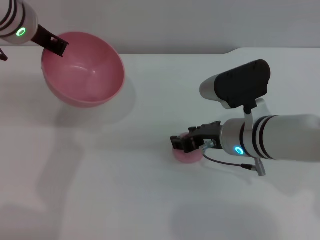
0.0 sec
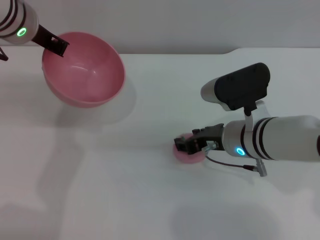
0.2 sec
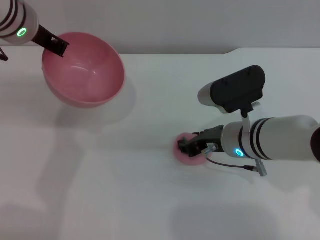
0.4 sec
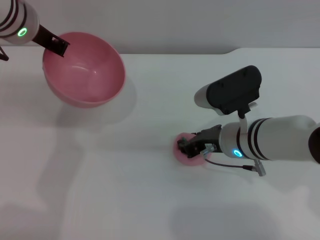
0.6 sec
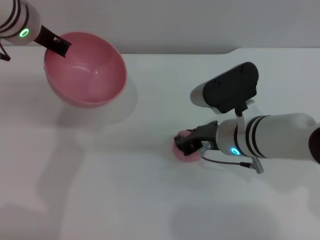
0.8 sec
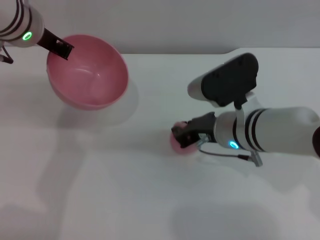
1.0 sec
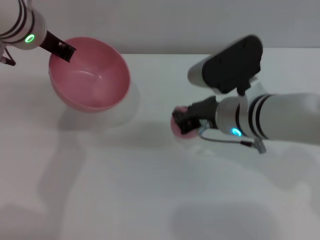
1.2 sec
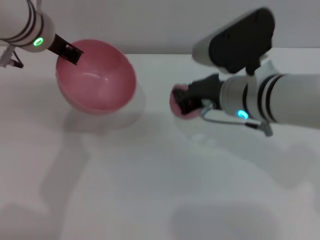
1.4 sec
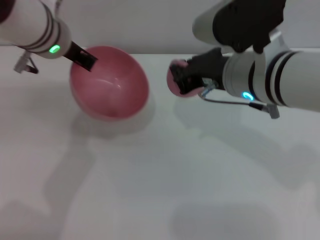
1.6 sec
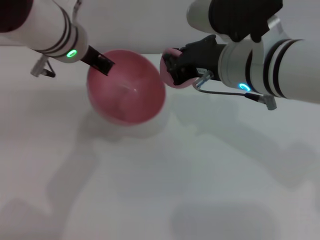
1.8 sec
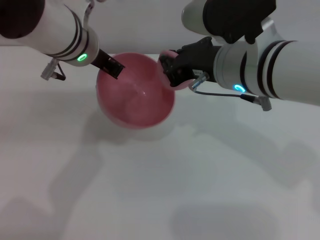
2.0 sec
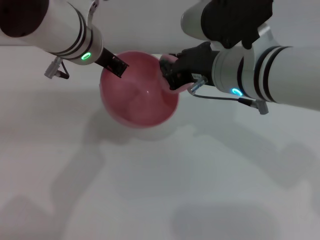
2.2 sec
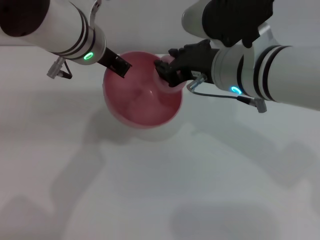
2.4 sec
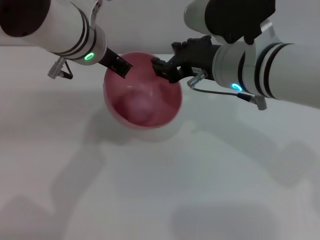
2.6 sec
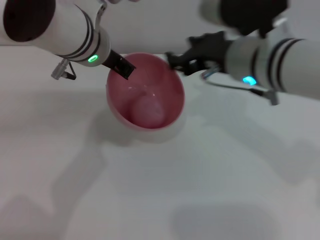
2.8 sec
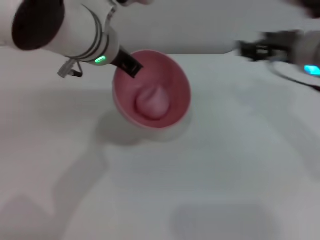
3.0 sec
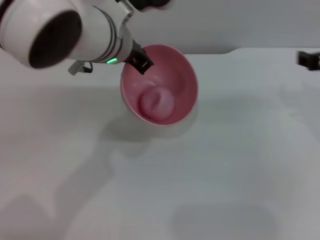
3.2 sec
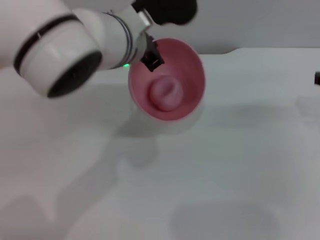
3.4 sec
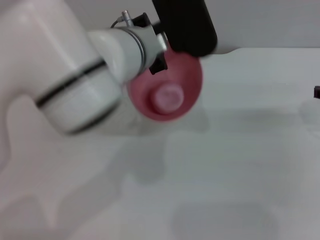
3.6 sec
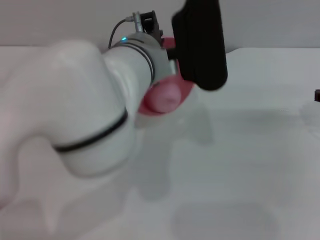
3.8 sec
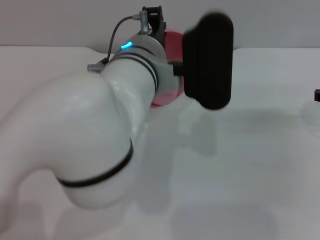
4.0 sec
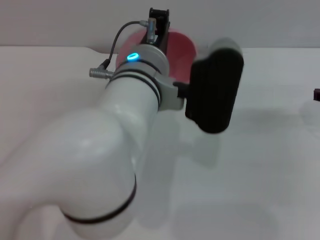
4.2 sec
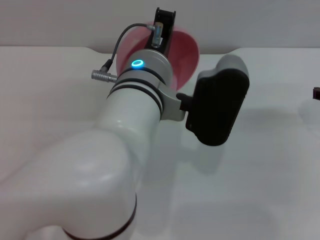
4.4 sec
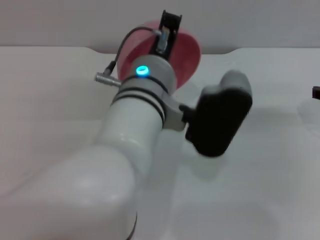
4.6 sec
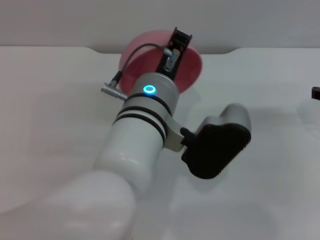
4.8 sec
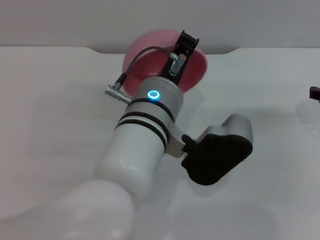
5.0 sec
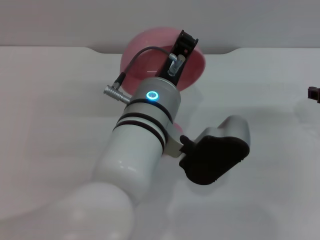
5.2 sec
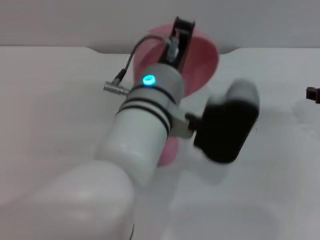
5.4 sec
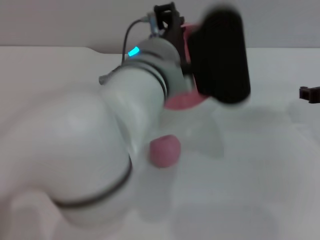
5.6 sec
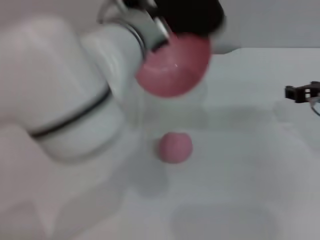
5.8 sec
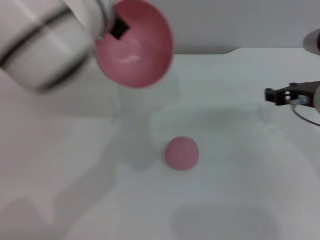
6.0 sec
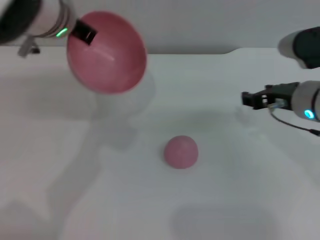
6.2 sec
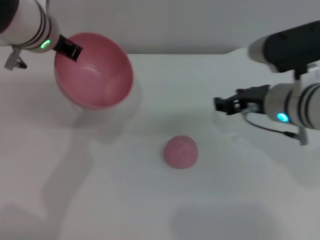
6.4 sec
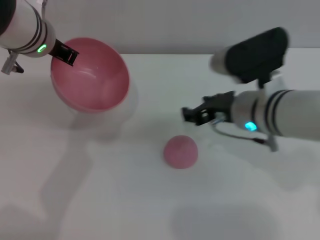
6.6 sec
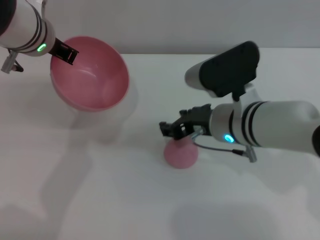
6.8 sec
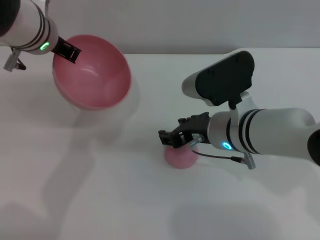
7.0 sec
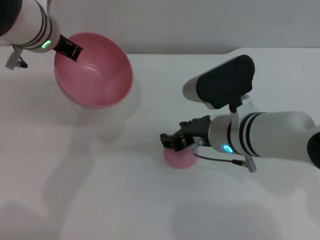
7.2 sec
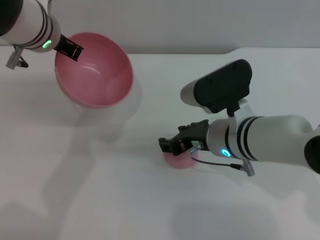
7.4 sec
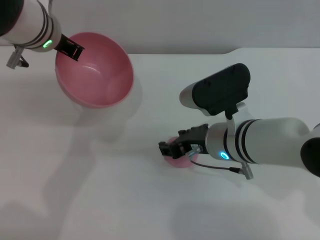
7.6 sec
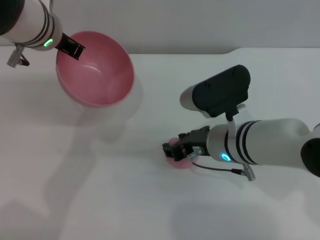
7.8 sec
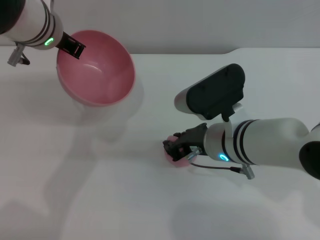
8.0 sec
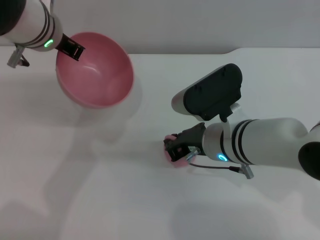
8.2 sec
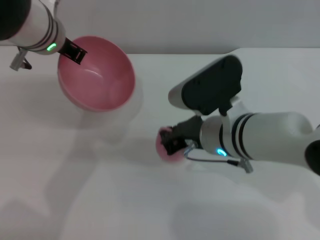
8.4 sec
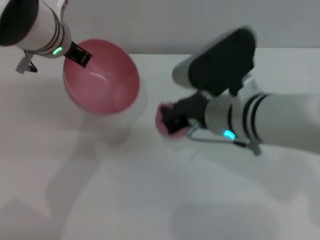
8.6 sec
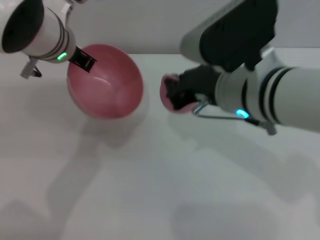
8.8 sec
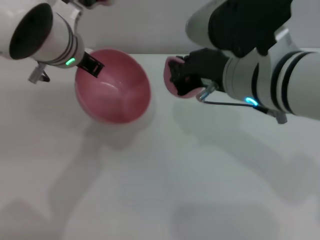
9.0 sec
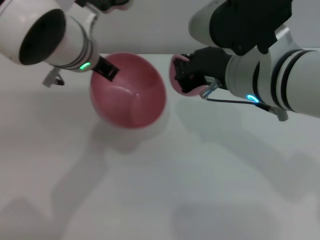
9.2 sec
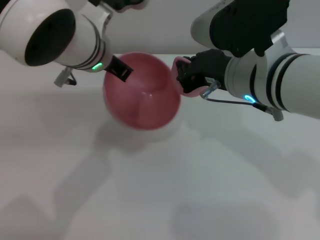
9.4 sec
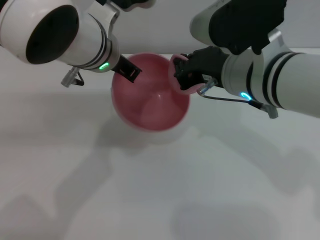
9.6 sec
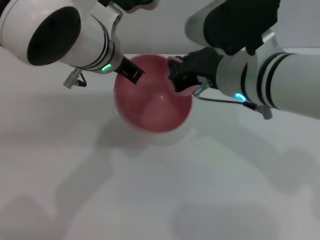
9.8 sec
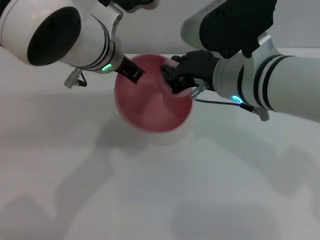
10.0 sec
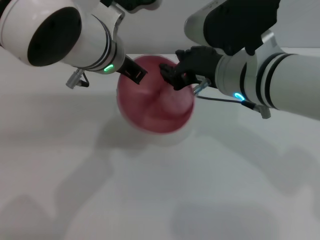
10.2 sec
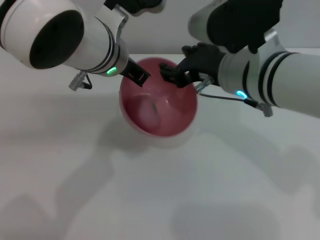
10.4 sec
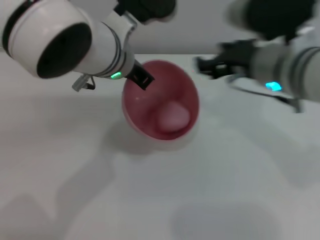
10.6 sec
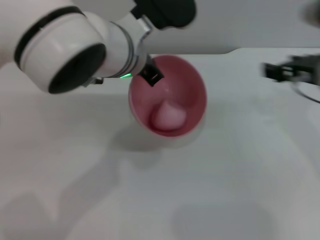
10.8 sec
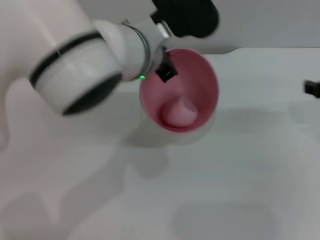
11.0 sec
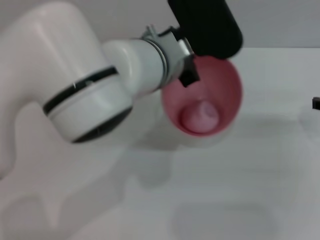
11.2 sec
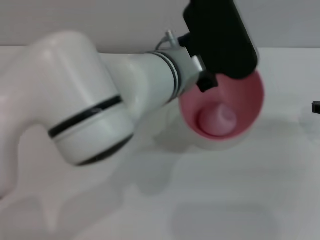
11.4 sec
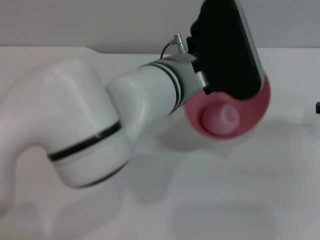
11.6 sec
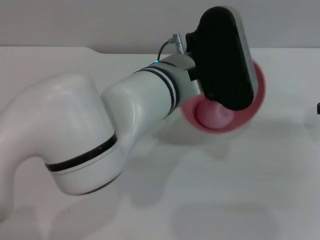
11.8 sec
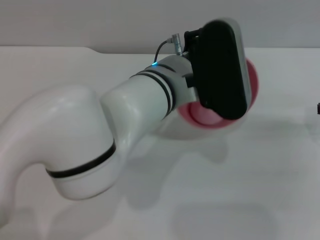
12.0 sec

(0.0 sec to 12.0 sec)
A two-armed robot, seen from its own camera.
Task of the whole recording: put the peach into the pink bowl and pour it out repeatedly.
Step, 1.8 sec - 2.8 sec: Place the peach into the bowl.
Step, 3.0 sec - 5.4 sec: Pour the peach out of bowl.
Step, 5.6 sec - 8.6 sec: Pick up the peach with the right gripper.
Step, 8.8 sec - 10.6 sec: Place the peach into the bowl.
0.0 sec - 1.6 sec: The right gripper travels upward by some 10 cm, and closes.
1.6 sec - 3.0 sec: Both grippers travel together to the right, about 5 cm. The right gripper opens up.
3.0 sec - 4.4 sec: The left gripper is displaced backward and to the right by some 10 cm. Meanwhile the right gripper moves to the right and downward, roughly 10 cm.
4.4 sec - 6.0 sec: The left gripper heads upward and forward, covering roughly 10 cm. Meanwhile the right gripper heads to the left, covering about 5 cm.
6.0 sec - 7.6 sec: The right gripper is displaced to the left by some 15 cm. Meanwhile the left gripper travels to the left by approximately 10 cm.
7.6 sec - 9.0 sec: The right gripper goes some 15 cm upward, and closes up.
9.0 sec - 10.4 sec: The left gripper shifts by some 5 cm; the right gripper opens.
10.4 sec - 12.0 sec: The left gripper heads to the right, covering some 5 cm. The right gripper shifts approximately 20 cm to the right, and opens up.

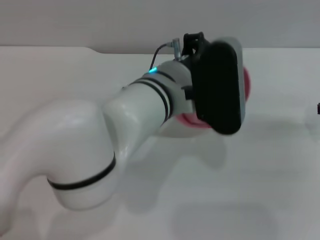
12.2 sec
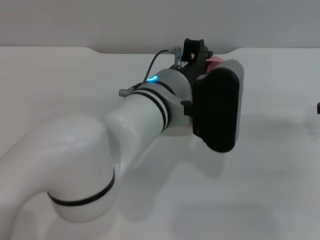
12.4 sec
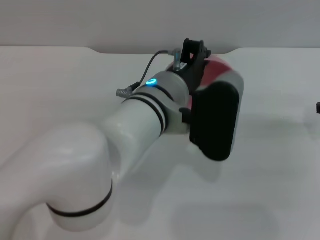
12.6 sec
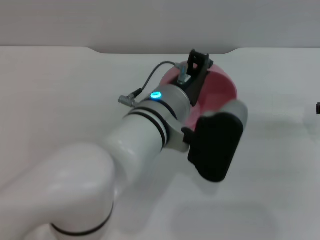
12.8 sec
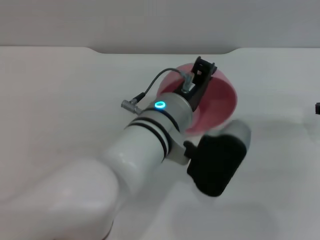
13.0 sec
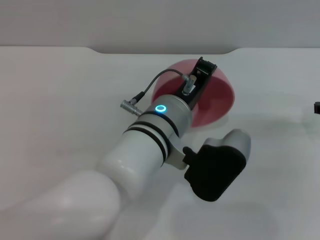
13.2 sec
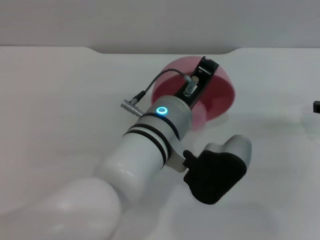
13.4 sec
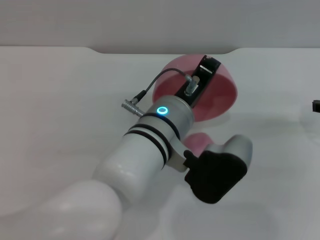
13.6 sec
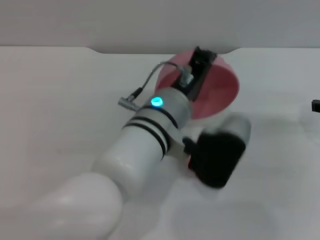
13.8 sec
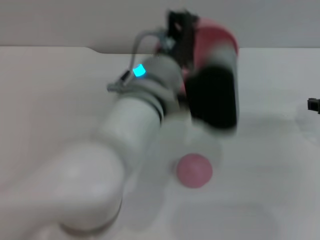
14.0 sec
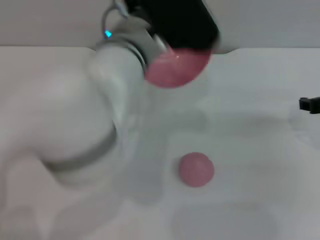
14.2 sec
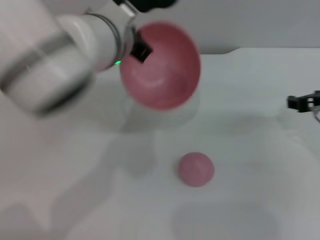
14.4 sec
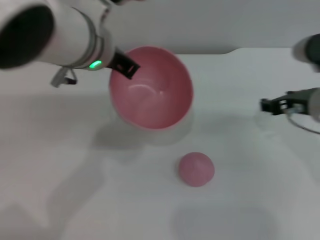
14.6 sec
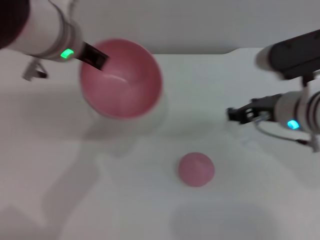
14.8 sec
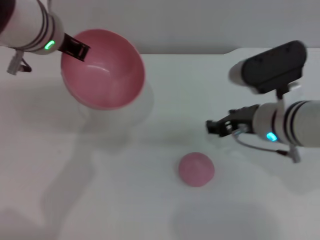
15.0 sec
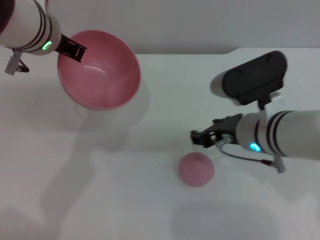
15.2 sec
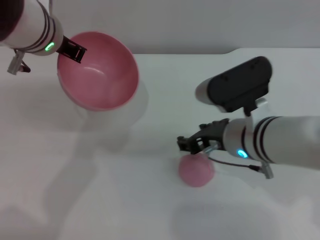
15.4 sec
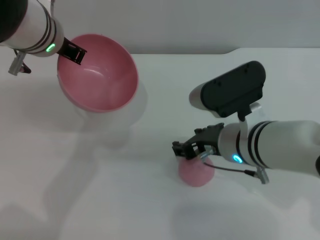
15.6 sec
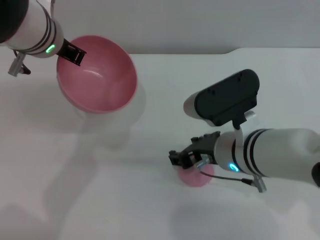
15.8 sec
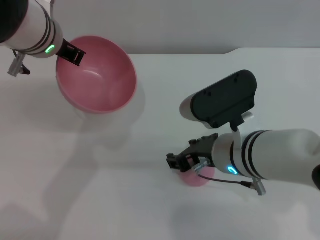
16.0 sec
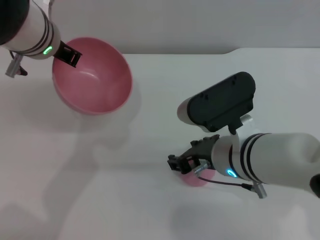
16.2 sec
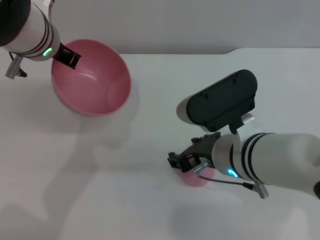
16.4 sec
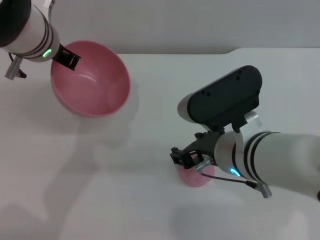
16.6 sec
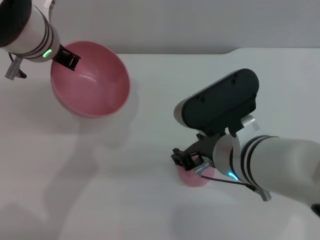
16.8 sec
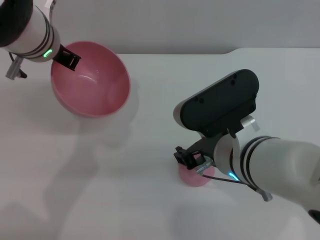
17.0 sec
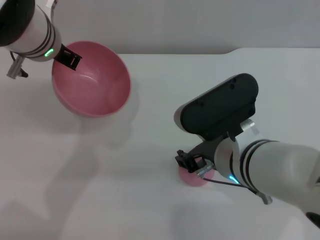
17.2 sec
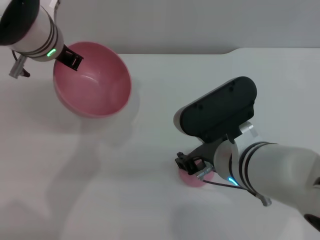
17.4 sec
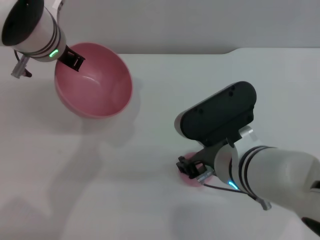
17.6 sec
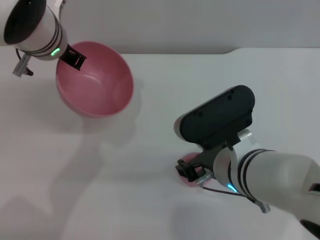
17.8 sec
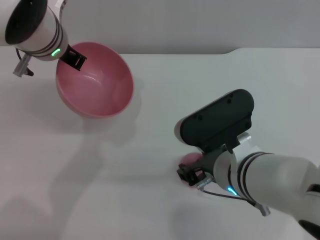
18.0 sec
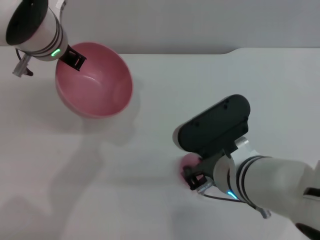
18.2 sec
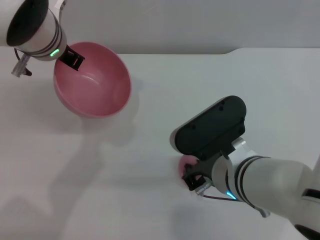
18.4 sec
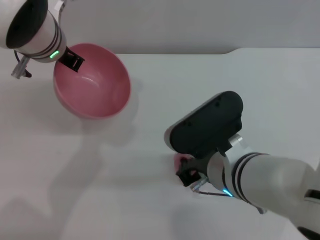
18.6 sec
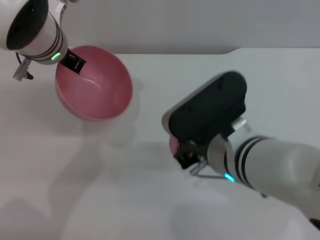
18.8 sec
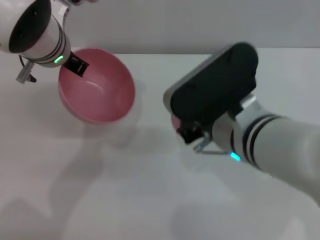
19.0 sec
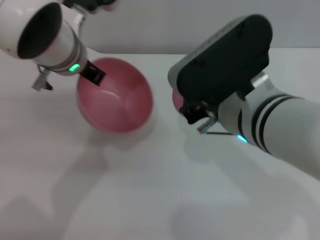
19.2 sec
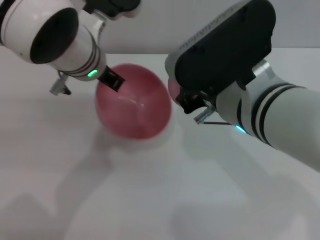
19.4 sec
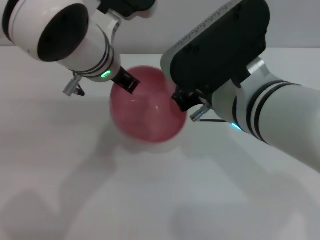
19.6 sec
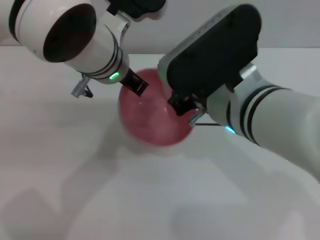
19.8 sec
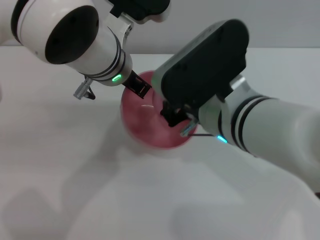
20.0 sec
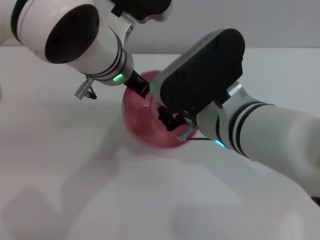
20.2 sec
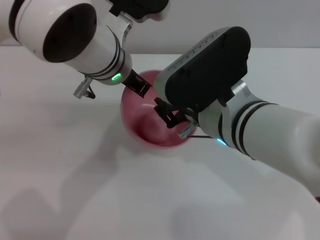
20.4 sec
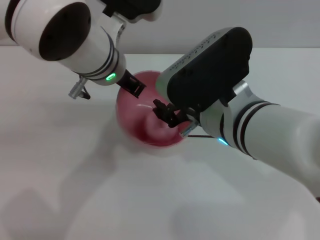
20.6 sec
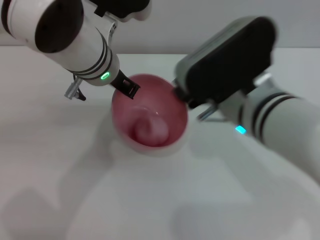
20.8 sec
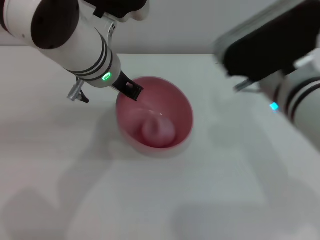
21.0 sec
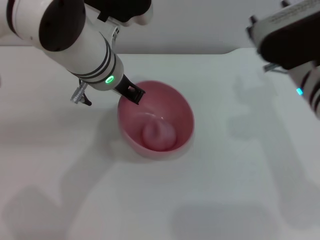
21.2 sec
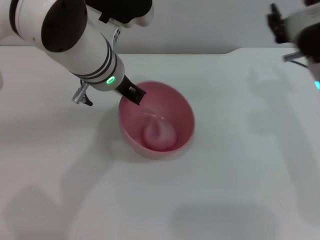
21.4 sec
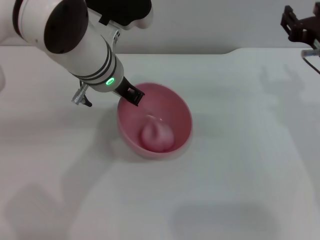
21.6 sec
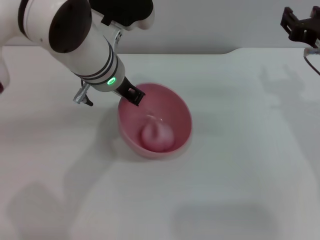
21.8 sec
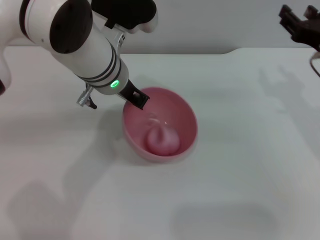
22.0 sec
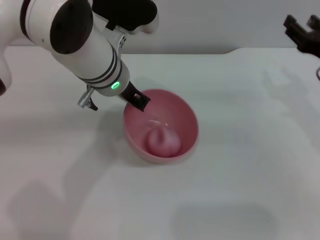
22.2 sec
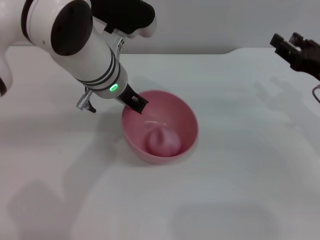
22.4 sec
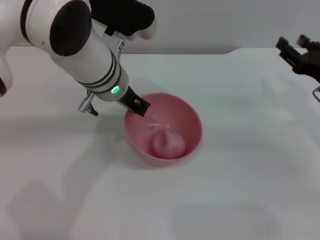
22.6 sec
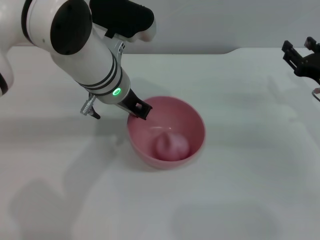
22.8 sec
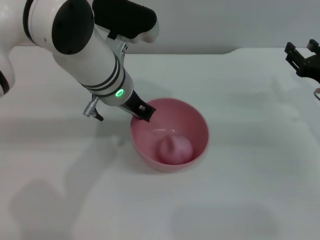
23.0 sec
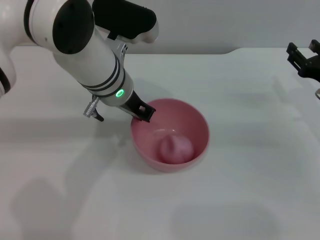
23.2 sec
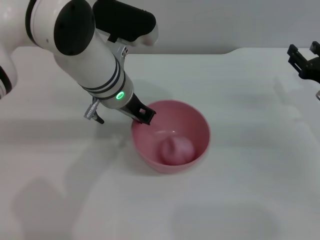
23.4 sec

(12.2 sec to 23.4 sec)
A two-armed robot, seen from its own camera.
Task of the whole recording: put the peach into the pink bowl and pour it out repeatedly.
Step, 12.2 sec - 13.8 sec: Pour the peach out of bowl.
Step, 14.2 sec - 19.0 sec: Pick up the peach with the right gripper.
Step, 19.2 sec - 20.6 sec: Place the peach into the bowl.
13.8 sec - 15.4 sec: The left gripper goes approximately 20 cm to the left, upward and forward. The right gripper travels to the left by roughly 15 cm.
15.4 sec - 17.0 sec: The right gripper moves about 5 cm.
17.0 sec - 18.6 sec: The right gripper closes its fingers.
18.6 sec - 20.2 sec: The right gripper shifts roughly 5 cm upward; the left gripper goes some 5 cm to the right.
20.2 sec - 21.8 sec: The right gripper shifts approximately 15 cm to the right, and opens its fingers.
21.8 sec - 23.4 sec: The right gripper goes roughly 10 cm downward and to the right.
